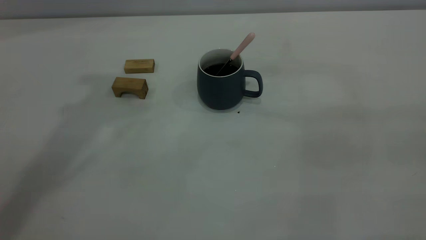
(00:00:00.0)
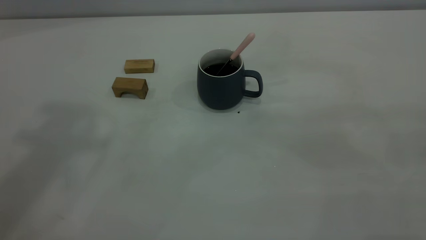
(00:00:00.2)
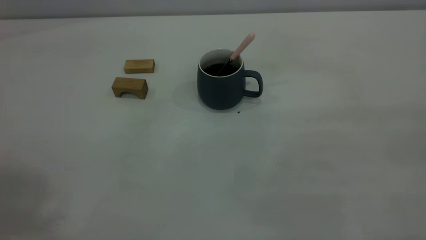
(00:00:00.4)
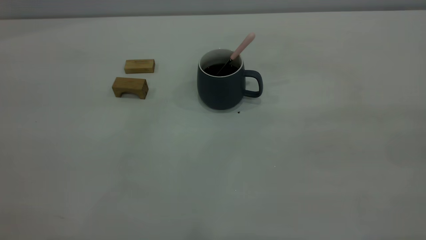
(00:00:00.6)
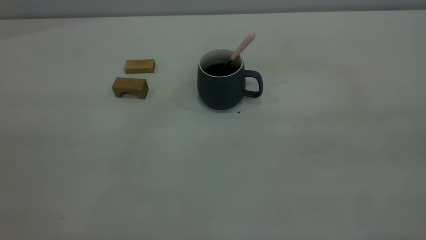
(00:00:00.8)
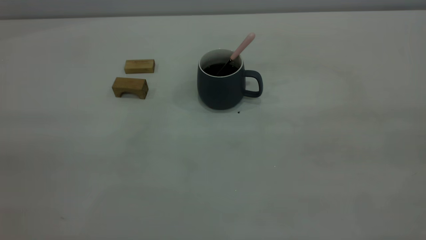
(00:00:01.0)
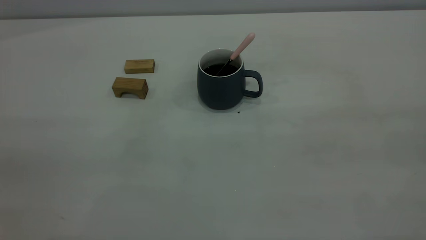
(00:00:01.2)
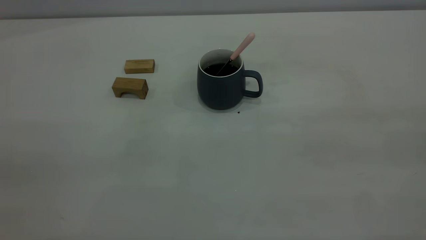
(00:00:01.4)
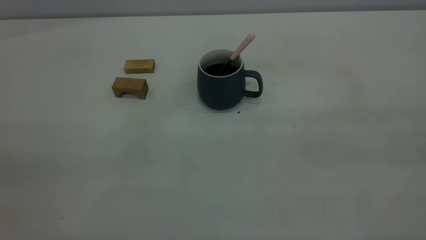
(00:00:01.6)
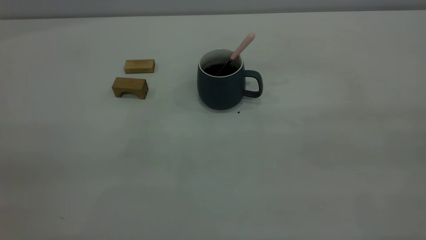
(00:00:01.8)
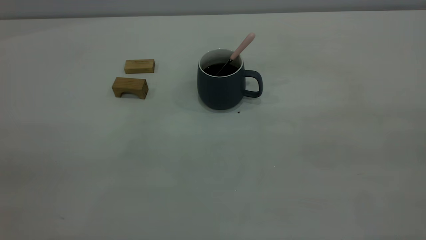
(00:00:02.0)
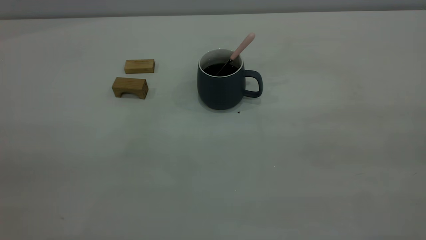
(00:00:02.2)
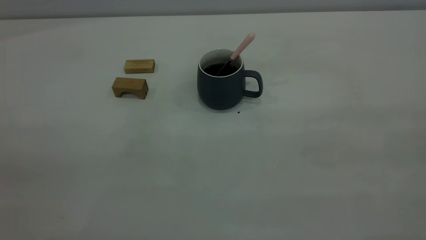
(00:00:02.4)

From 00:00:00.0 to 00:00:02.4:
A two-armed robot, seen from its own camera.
From 00:00:01.2 to 00:00:02.4: Both grippers stay about where they are.
